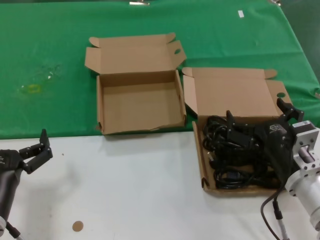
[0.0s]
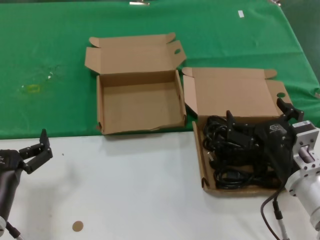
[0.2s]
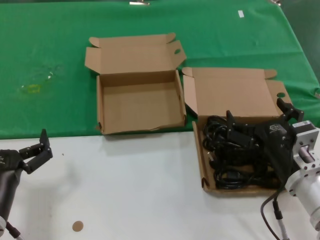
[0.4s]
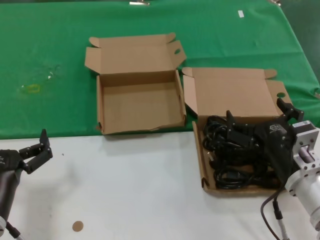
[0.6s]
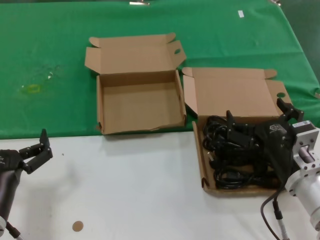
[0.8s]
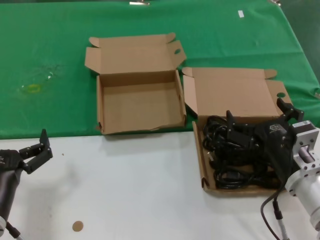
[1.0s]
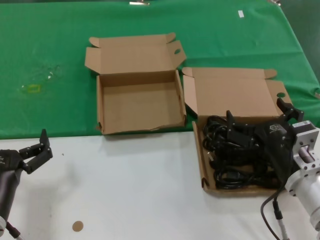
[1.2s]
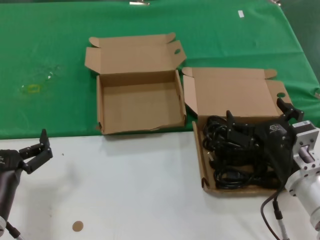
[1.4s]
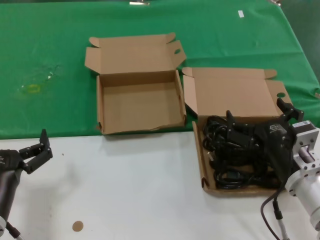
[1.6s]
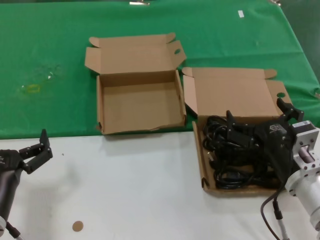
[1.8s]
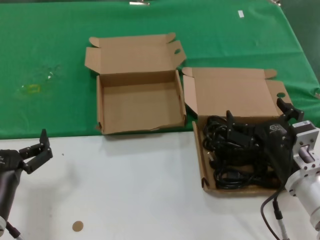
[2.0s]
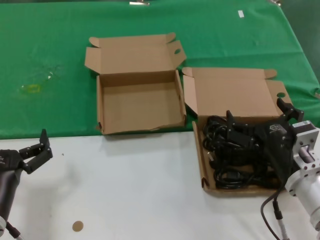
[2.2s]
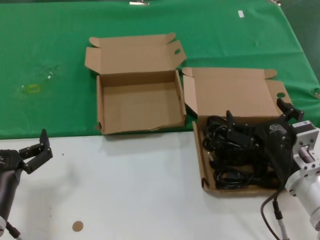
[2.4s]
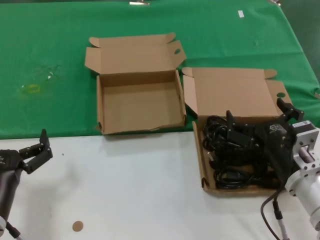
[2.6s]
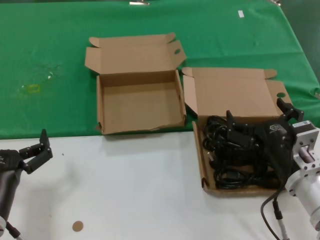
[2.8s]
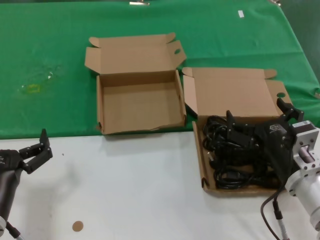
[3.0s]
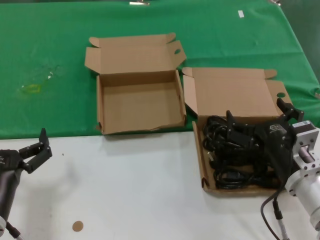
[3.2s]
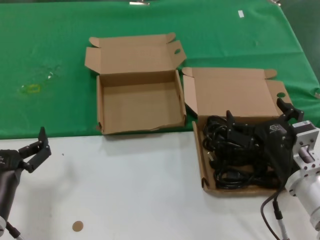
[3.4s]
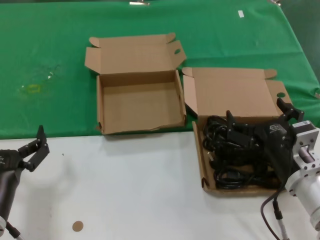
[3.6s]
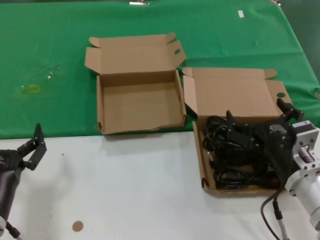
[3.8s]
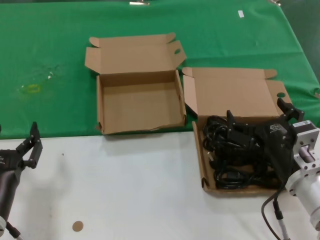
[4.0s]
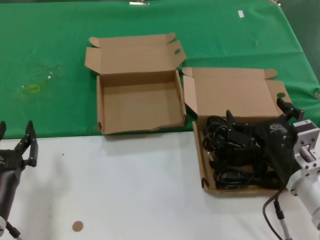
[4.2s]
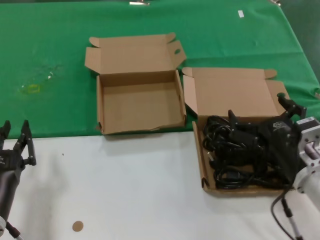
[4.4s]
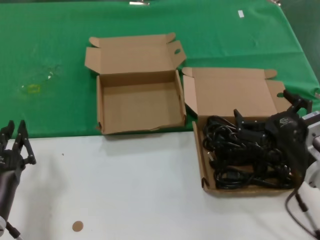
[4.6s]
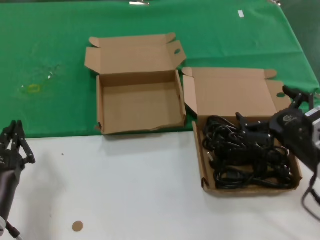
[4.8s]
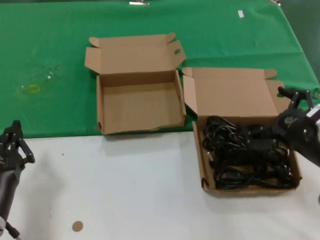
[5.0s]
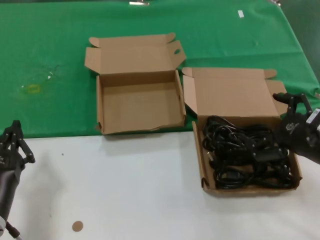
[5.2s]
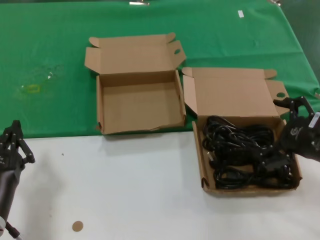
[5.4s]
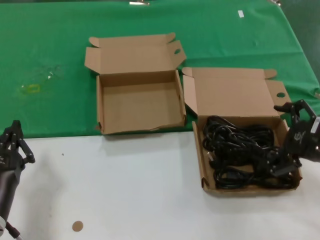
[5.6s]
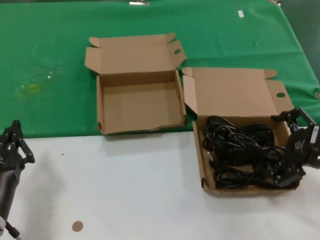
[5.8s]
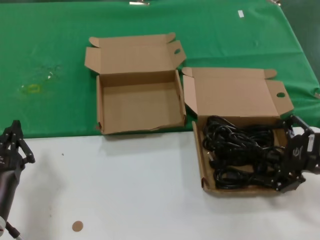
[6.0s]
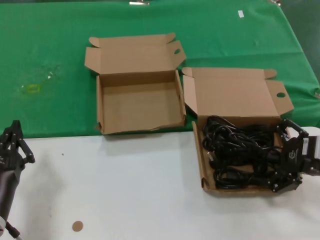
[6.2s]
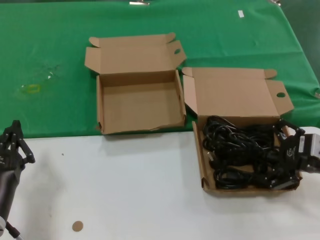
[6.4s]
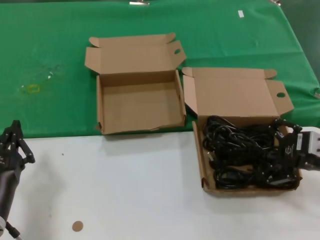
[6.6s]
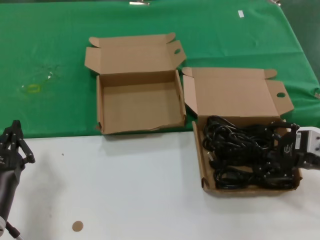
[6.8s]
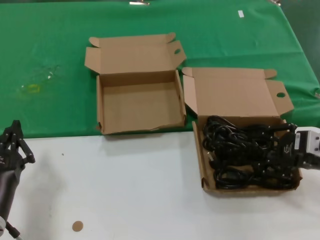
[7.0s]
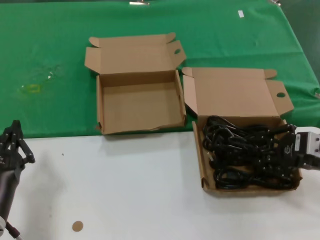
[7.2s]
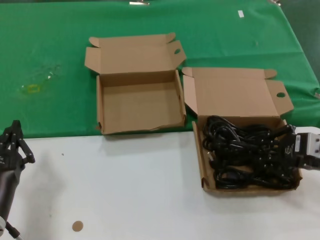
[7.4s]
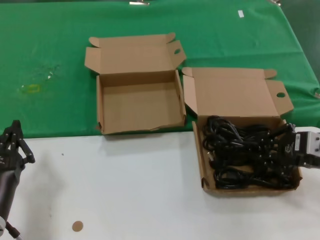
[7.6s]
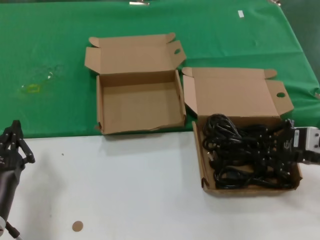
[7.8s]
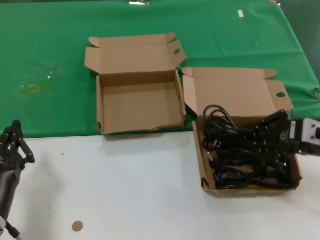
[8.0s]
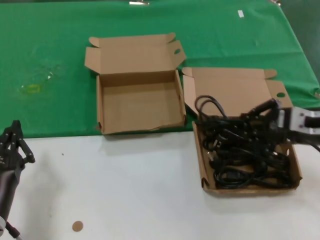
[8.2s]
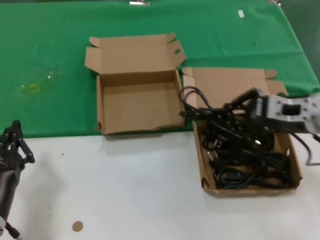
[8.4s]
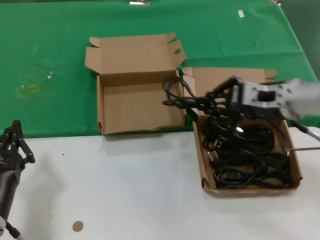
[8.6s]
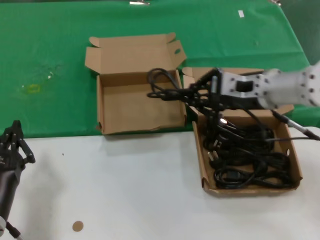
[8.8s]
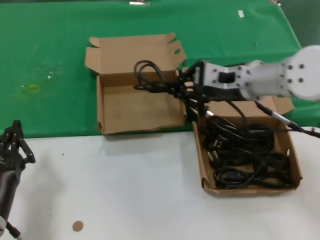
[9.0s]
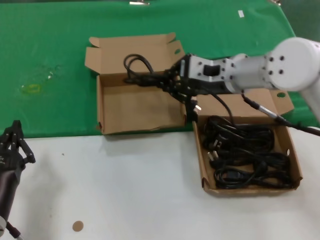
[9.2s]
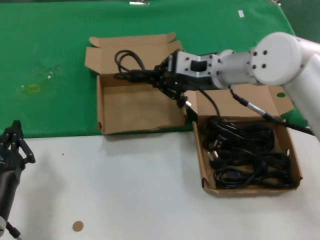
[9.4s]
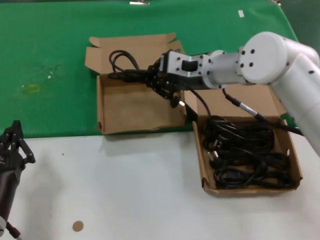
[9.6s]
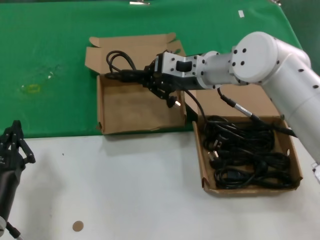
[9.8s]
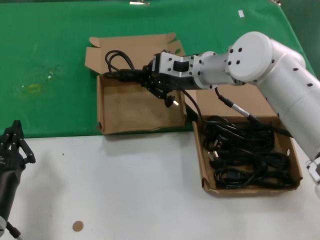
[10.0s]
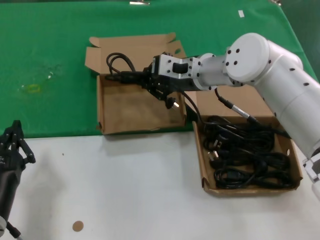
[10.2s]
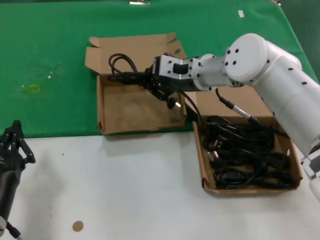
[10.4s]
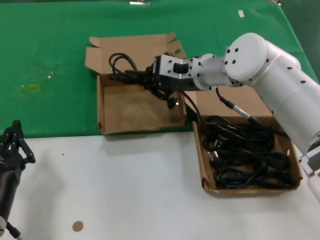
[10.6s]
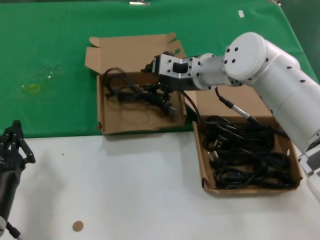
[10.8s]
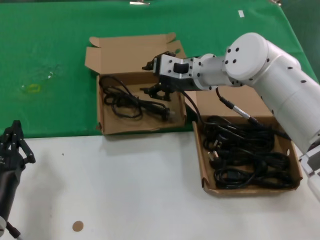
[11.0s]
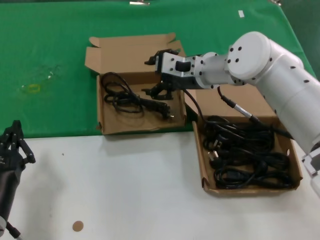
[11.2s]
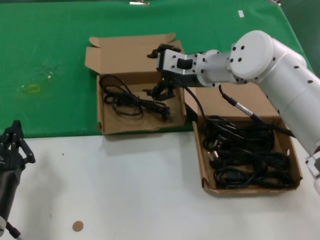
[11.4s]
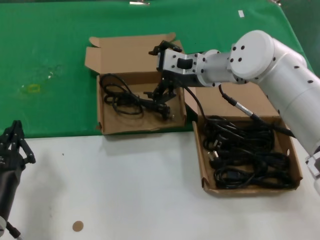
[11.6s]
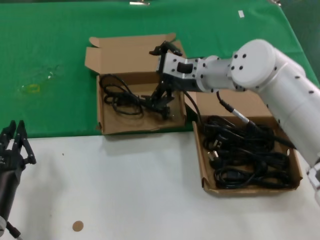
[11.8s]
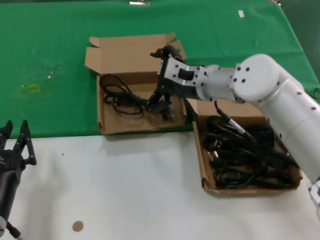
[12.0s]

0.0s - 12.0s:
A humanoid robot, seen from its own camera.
Task of the whole recording: take the parts from the box containing them and put them into an empty box.
Step, 0.0s - 7.4s: Grasp the data cable.
Step, 7.6s - 10.8s: Place the data cable in the another box.
0.0s - 4.4s: Neither hand changes place.
4.4s - 6.0s: The right hand travels to the right and upward by approximately 15 cm.
6.0s - 7.6s: There are only small adjustments of the hands.
7.6s - 9.0s: The right hand heads to the left, forward and upward, covering approximately 20 cm.
9.0s - 10.4s: The right hand travels to the left and forward by roughly 10 cm.
10.4s - 12.0s: The hands make only small movements.

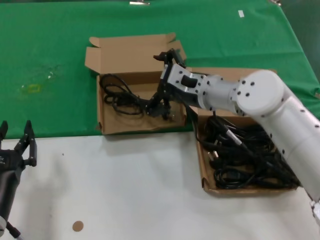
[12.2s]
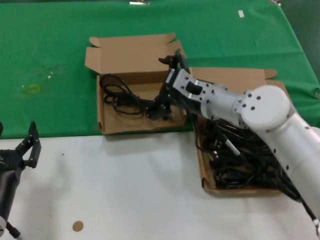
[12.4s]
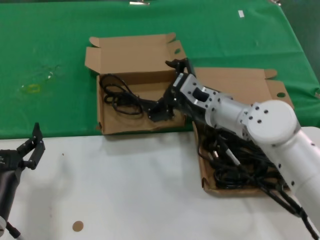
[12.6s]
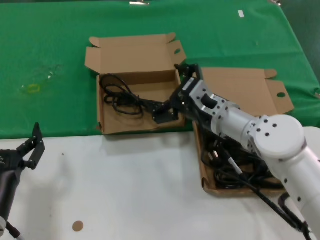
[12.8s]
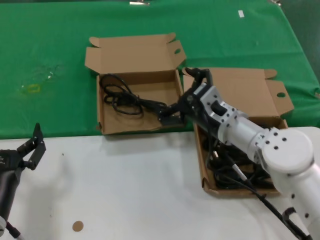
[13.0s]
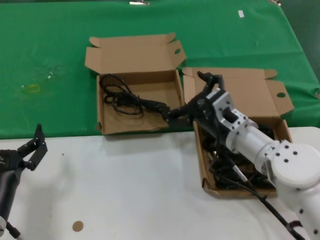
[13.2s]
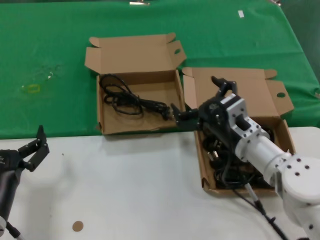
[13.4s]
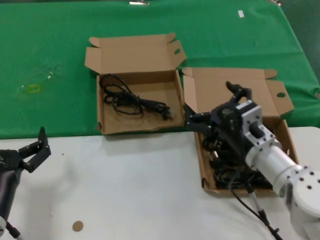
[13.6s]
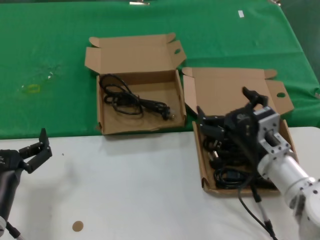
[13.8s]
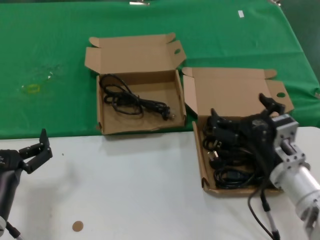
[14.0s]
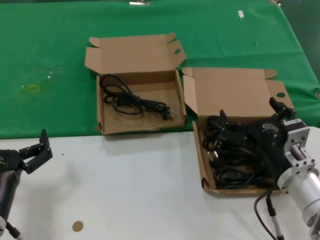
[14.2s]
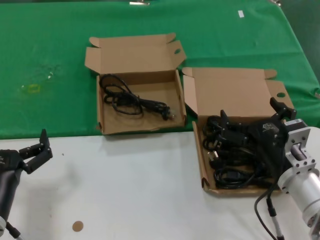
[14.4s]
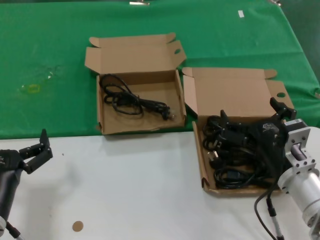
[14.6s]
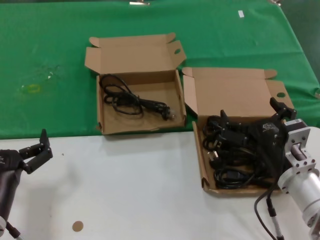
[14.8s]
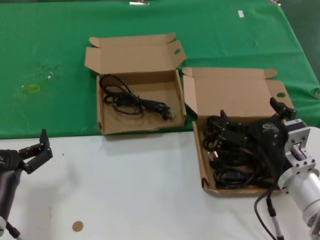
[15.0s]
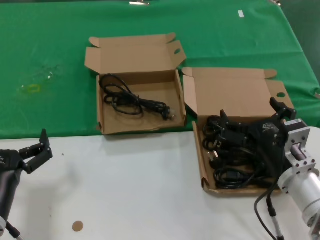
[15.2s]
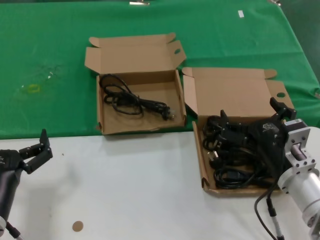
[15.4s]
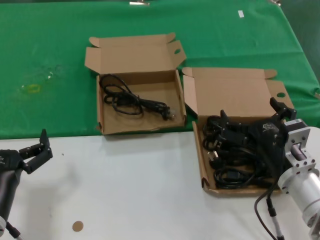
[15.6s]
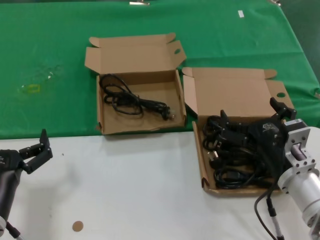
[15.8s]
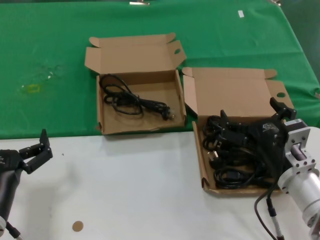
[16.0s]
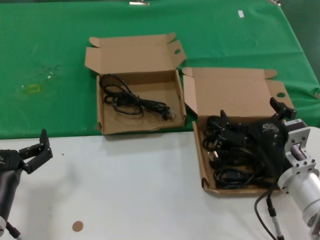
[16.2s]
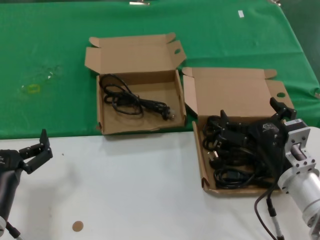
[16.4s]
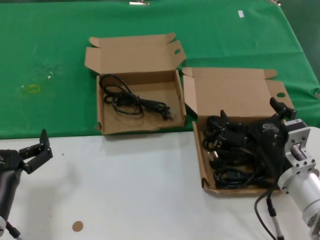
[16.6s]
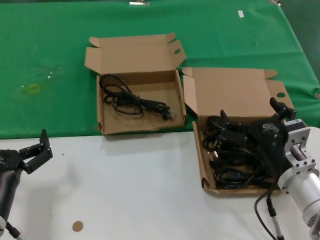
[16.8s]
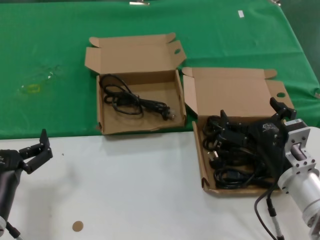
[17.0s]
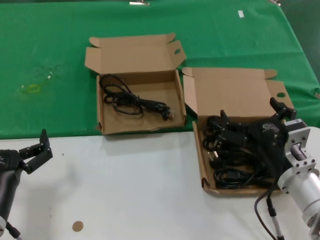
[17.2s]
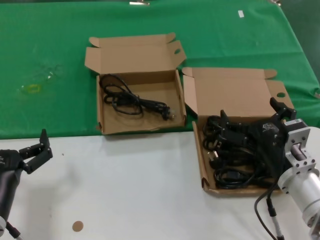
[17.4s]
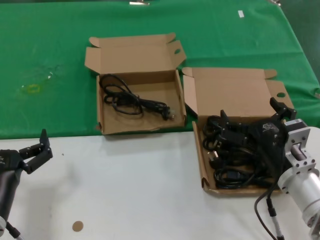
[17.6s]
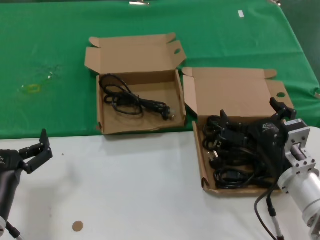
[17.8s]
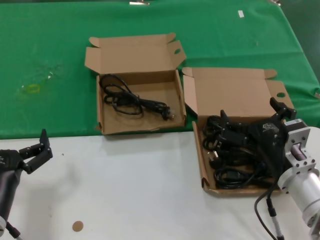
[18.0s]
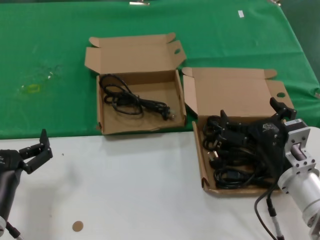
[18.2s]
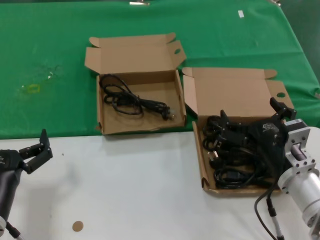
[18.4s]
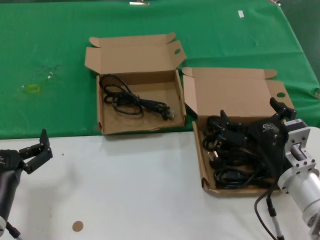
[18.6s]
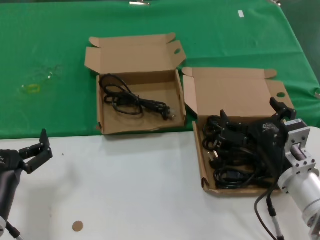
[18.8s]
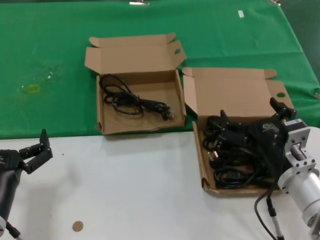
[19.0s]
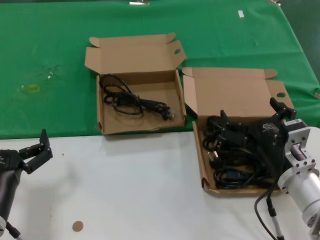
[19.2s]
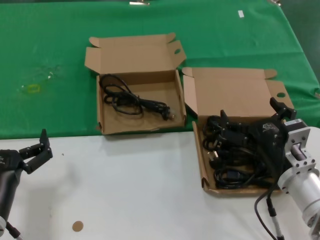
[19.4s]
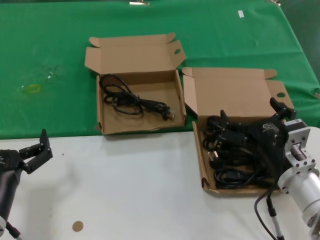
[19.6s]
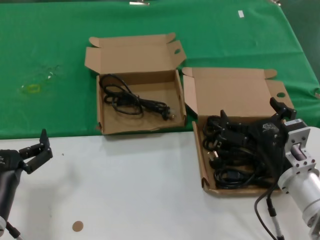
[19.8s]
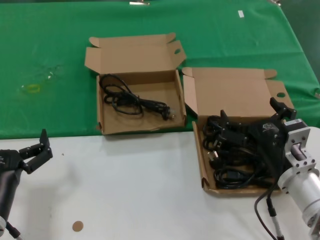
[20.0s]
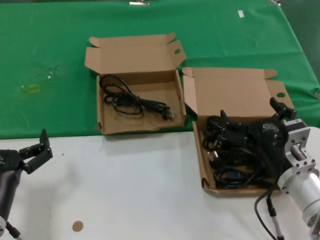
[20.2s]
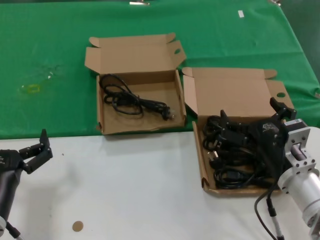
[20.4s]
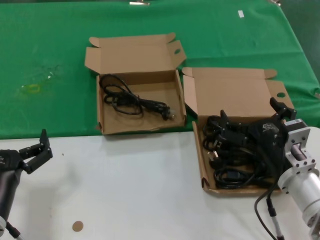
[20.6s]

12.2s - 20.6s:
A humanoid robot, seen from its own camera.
Task of the whole recording: take the parts from the box containing them and put them into an empty box.
12.2s - 13.6s: The right hand shifts approximately 15 cm backward, downward and to the right.
13.6s - 15.0s: The right hand moves backward, some 5 cm.
15.0s - 20.6s: Both hands stay put.

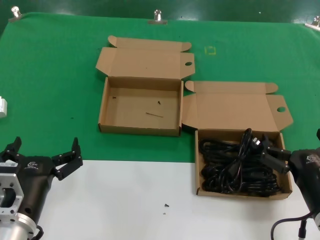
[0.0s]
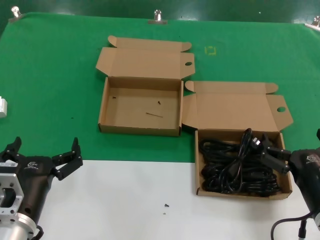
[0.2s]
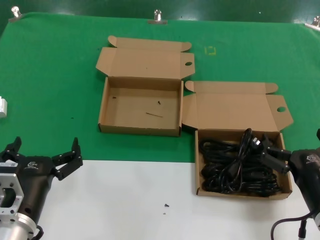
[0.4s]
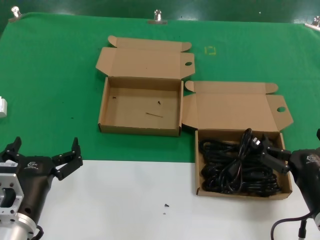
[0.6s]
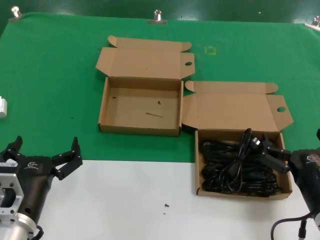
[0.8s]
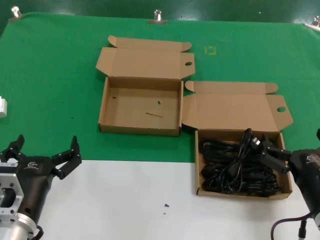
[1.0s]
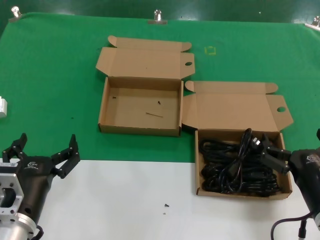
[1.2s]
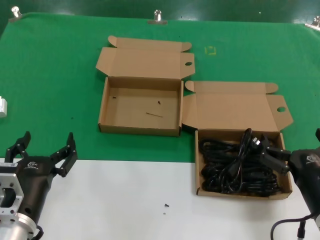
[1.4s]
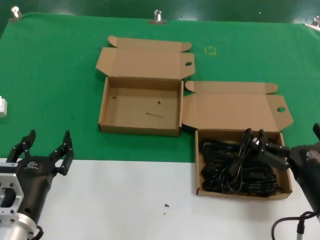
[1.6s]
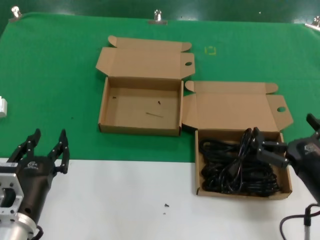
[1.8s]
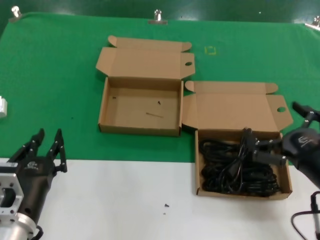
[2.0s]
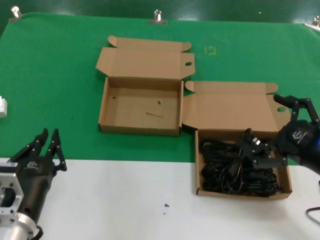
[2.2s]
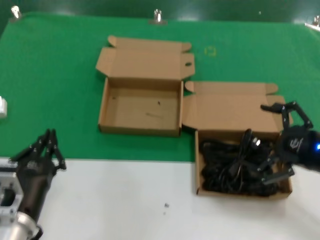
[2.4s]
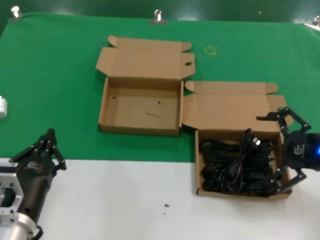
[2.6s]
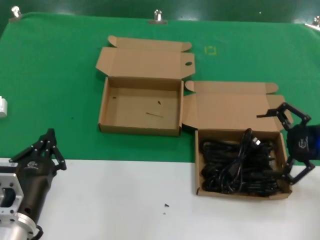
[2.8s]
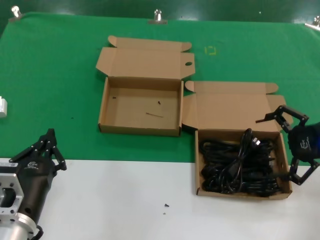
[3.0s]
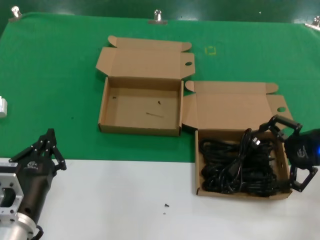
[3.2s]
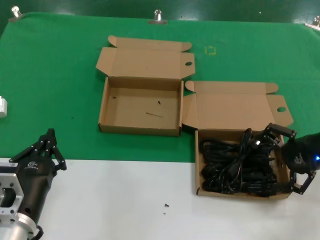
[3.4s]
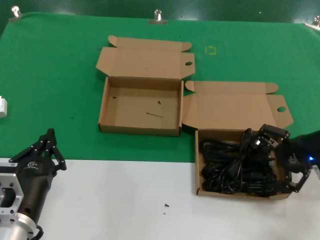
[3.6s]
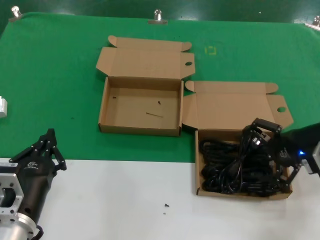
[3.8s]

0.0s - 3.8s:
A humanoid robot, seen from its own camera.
Task of the whole recording: take the parts from the box containing them and put them into an empty box.
0.0s - 1.2s: The two hands keep their place.
1.2s - 2.6s: The right hand heads to the right, upward and forward, covering approximately 20 cm.
2.6s - 3.8s: The right hand moves forward, about 10 cm.
